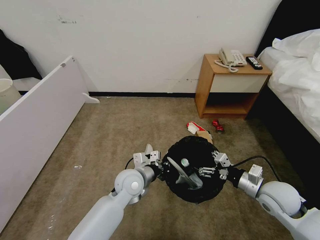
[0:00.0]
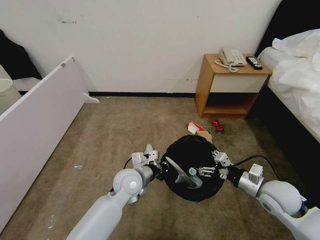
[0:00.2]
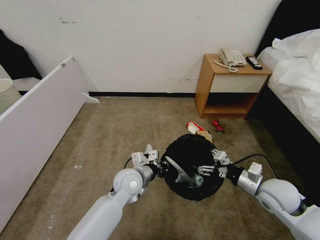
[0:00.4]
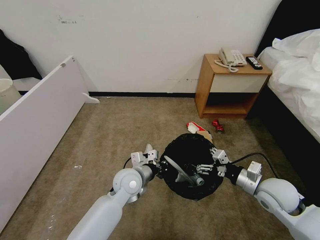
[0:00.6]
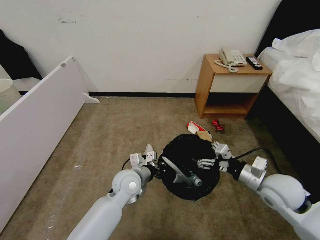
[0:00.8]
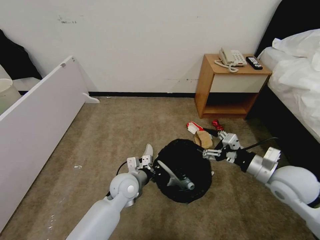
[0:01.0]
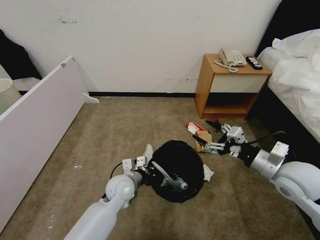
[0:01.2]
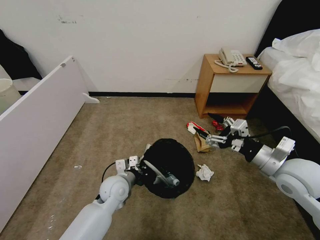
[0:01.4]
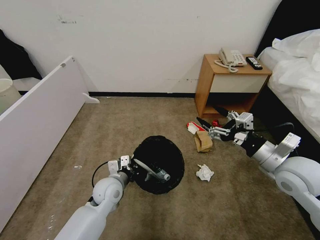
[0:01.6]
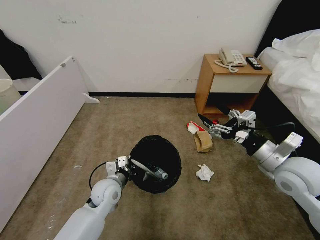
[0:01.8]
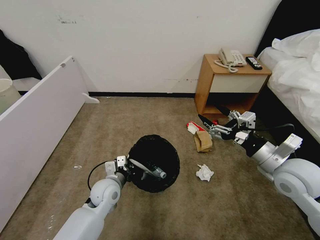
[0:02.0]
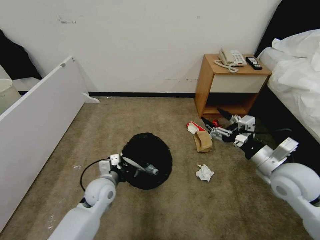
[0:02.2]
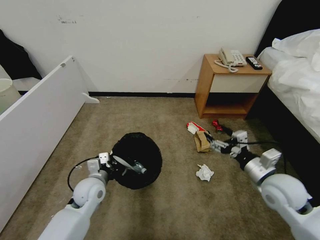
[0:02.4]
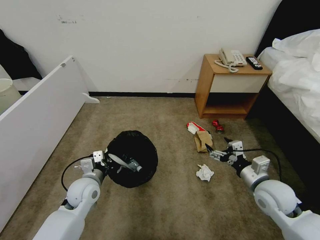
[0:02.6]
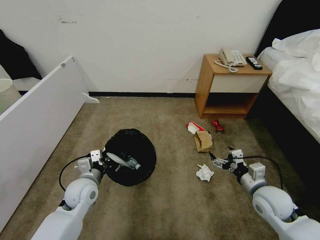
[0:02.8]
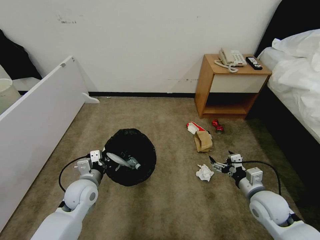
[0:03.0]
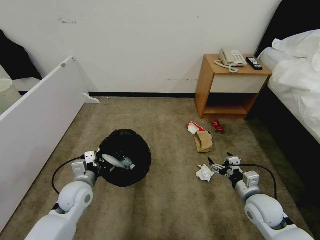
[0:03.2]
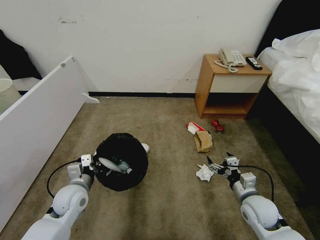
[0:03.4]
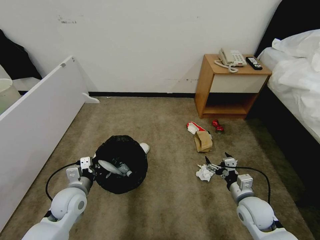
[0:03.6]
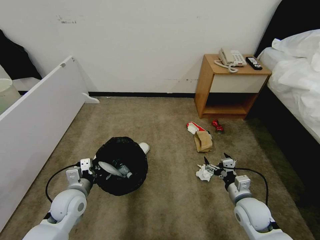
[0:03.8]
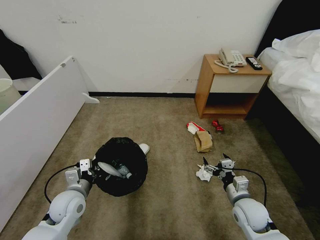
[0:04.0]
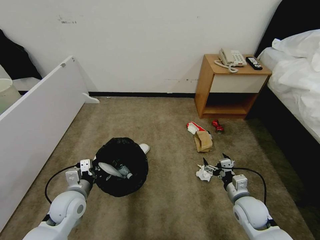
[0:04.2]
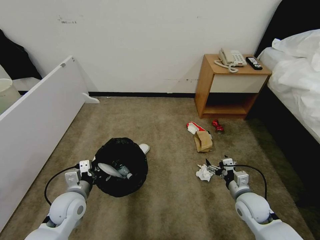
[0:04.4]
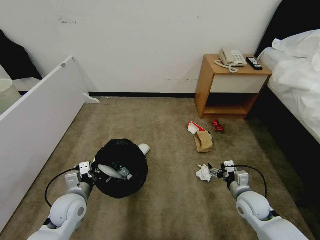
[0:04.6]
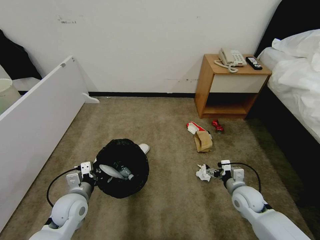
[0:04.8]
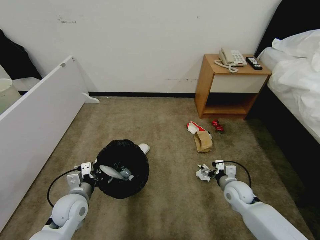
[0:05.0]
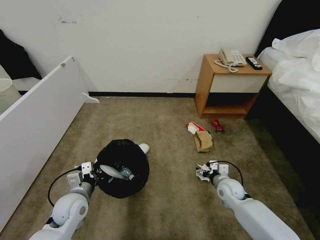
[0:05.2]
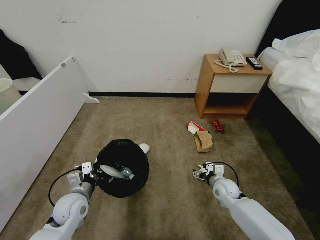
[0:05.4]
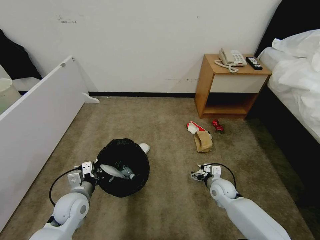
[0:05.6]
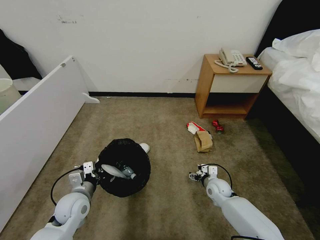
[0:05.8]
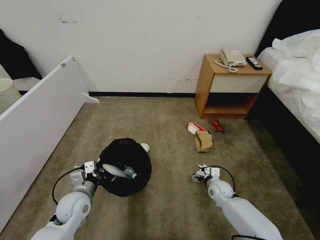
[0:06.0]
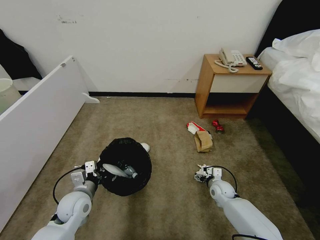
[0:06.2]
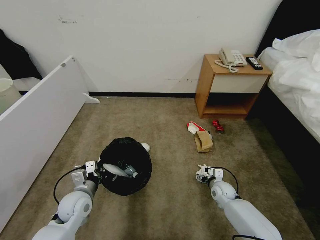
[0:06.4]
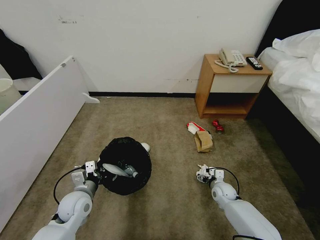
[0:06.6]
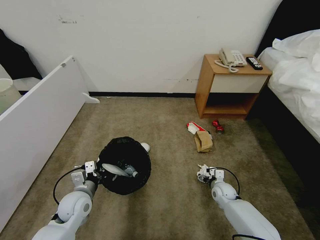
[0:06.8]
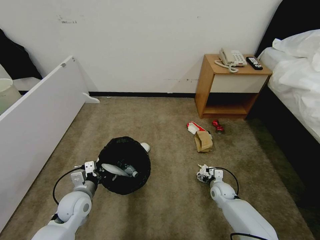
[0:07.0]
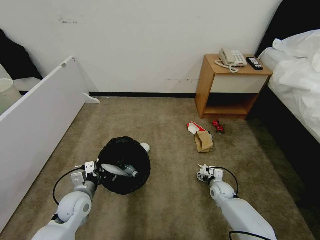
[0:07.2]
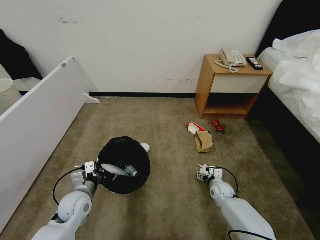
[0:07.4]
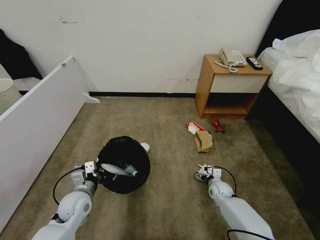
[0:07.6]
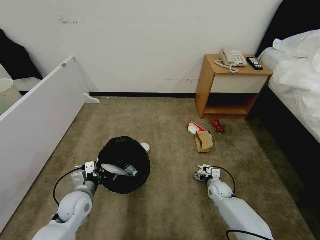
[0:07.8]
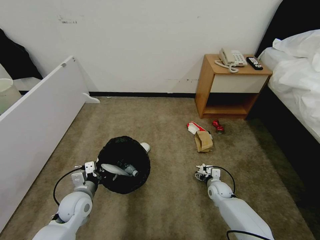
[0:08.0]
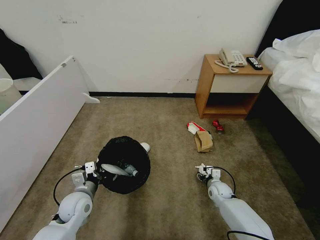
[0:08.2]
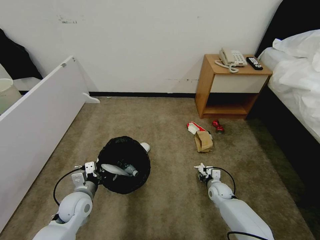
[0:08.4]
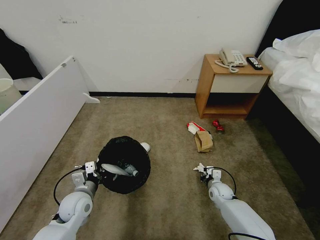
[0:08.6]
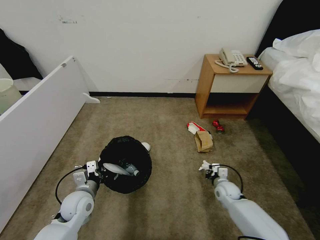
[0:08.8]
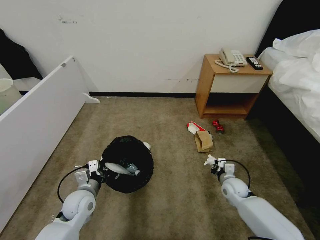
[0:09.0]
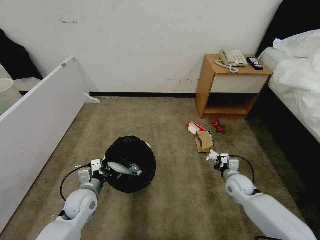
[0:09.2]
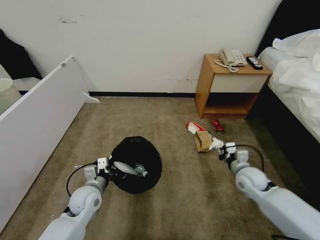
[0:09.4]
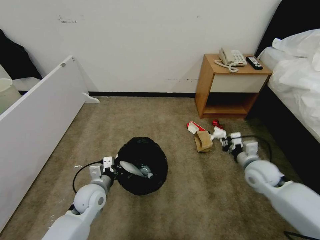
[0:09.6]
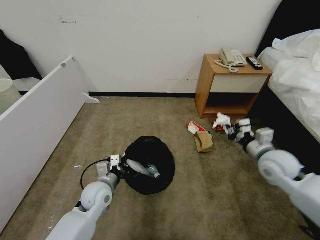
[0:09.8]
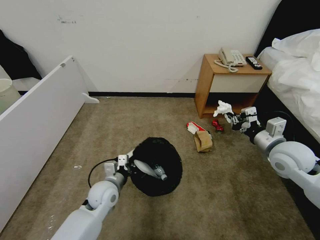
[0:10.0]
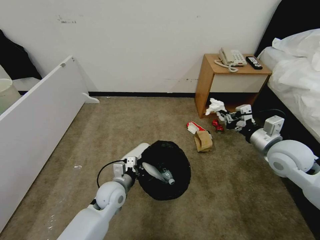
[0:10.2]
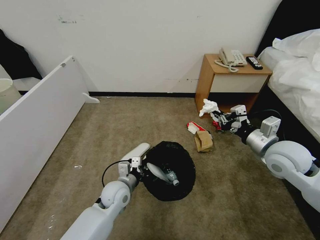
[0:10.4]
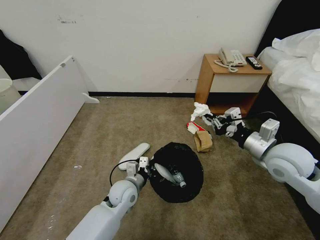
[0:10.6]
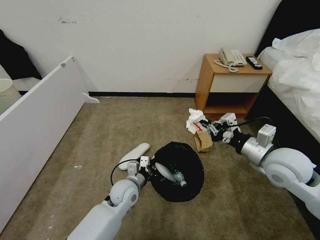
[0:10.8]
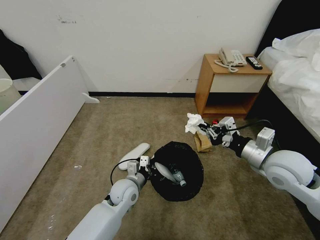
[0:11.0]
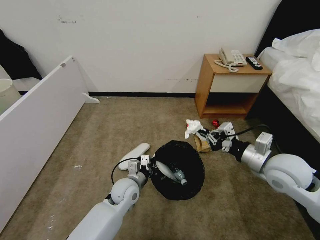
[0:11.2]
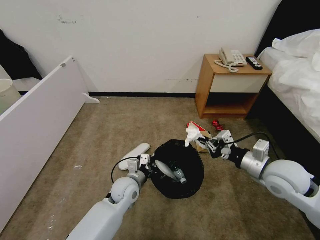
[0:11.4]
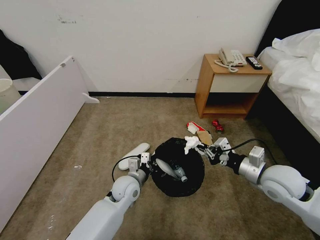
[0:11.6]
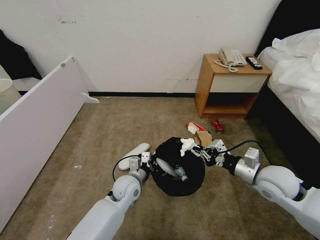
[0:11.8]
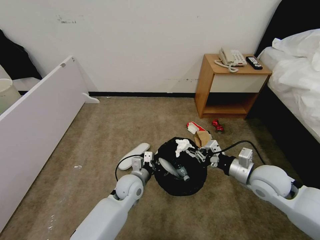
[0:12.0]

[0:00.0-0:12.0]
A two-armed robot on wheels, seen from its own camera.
Task of the whole recording: Pick up the trash bin, then pick up the garbage from the floor and place it into the trash bin.
0.0 to 1.6 s: The left gripper goes roughly 5 cm to the left. The right gripper heads upward, covering approximately 10 cm.
1.6 to 3.0 s: The right gripper moves downward, some 15 cm. Meanwhile the left gripper heads to the left, covering approximately 10 cm.
3.0 to 4.4 s: The right gripper moves downward, about 5 cm. The left gripper ends up some 5 cm from where it was.
4.4 to 6.0 s: The right gripper goes some 15 cm downward and forward.
6.0 to 7.6 s: The grippers stay close to where they were, moving slightly.
7.6 to 9.0 s: The right gripper shifts some 5 cm upward, and closes its fingers.
9.0 to 10.4 s: The right gripper moves upward, roughly 30 cm, while the left gripper goes approximately 10 cm to the right.
10.4 to 12.0 s: The left gripper moves approximately 5 cm. Meanwhile the right gripper travels downward by approximately 5 cm.

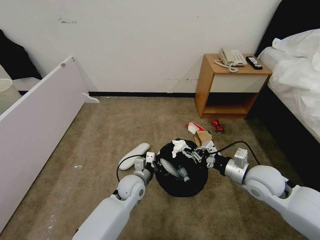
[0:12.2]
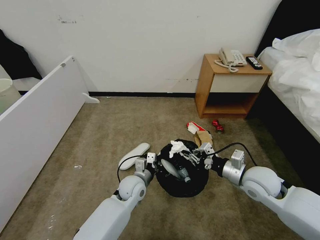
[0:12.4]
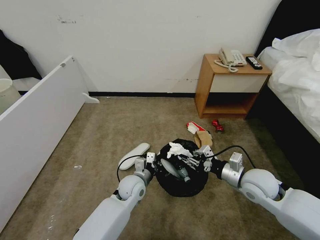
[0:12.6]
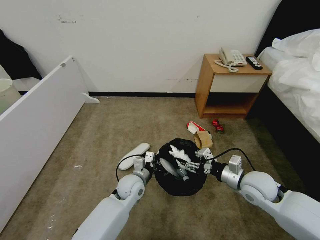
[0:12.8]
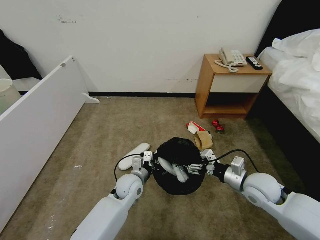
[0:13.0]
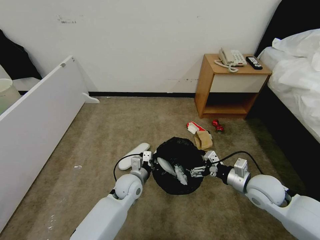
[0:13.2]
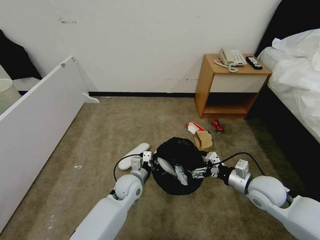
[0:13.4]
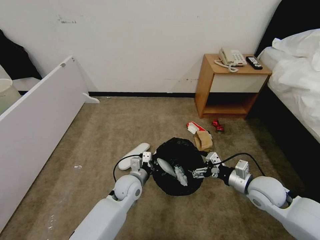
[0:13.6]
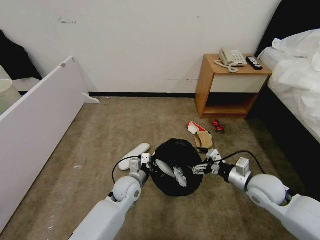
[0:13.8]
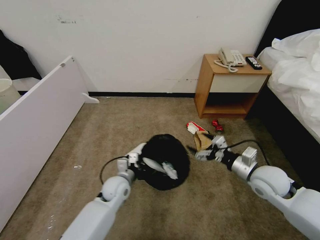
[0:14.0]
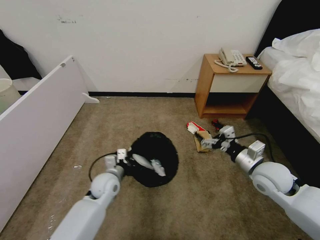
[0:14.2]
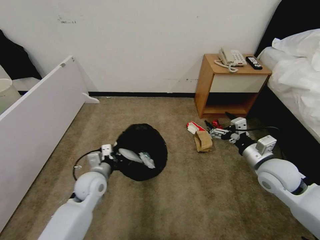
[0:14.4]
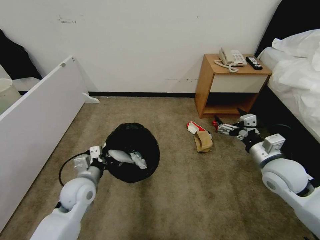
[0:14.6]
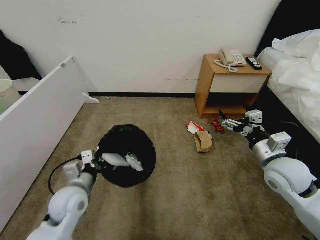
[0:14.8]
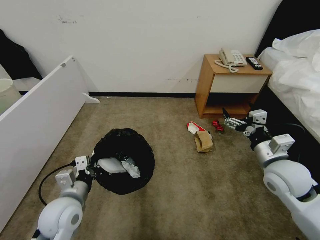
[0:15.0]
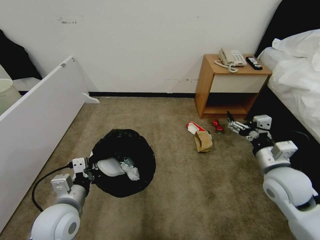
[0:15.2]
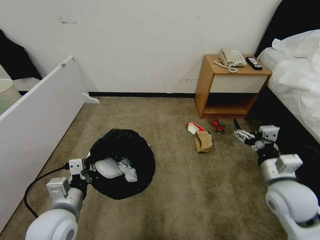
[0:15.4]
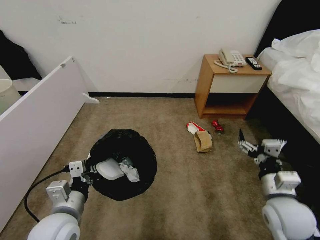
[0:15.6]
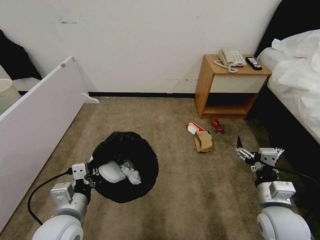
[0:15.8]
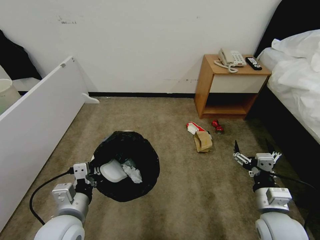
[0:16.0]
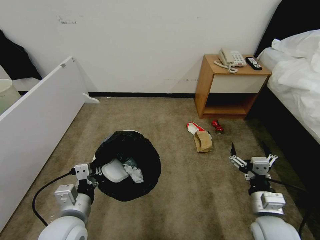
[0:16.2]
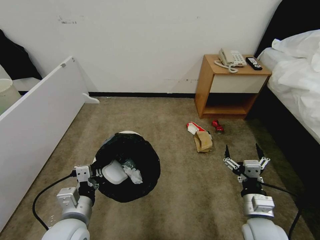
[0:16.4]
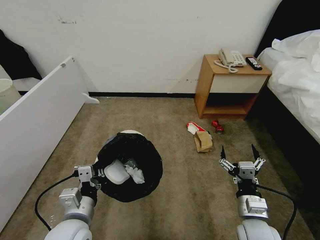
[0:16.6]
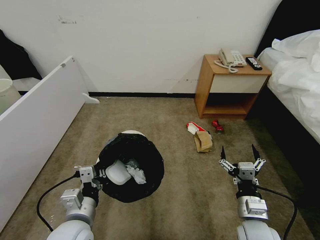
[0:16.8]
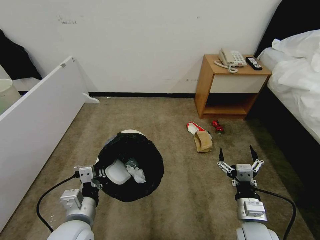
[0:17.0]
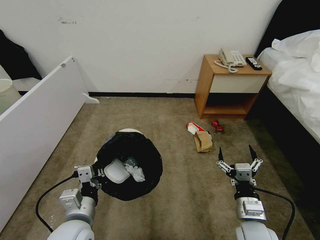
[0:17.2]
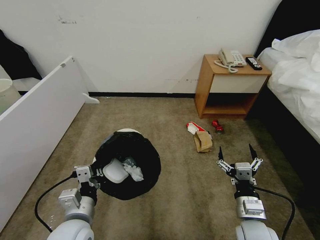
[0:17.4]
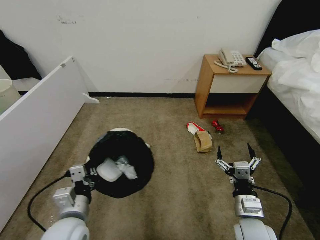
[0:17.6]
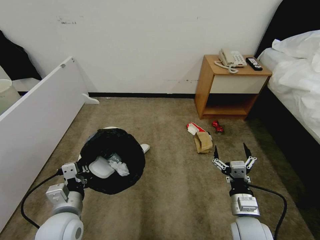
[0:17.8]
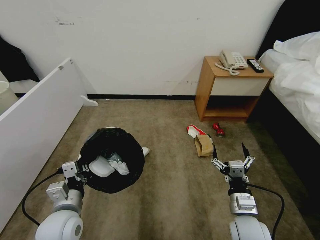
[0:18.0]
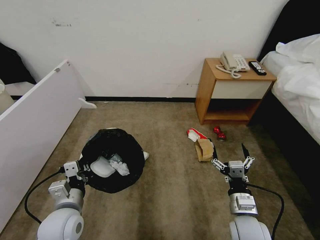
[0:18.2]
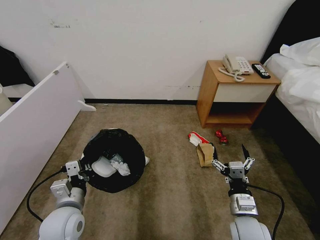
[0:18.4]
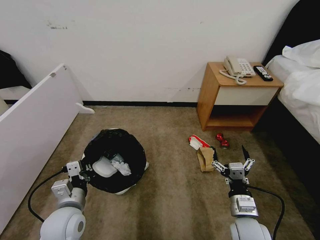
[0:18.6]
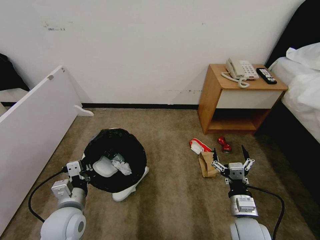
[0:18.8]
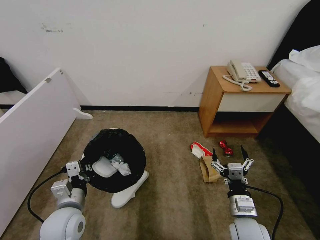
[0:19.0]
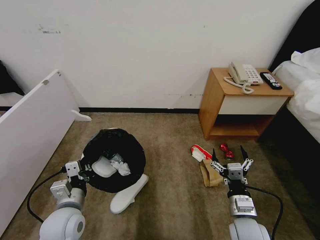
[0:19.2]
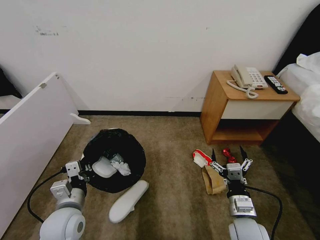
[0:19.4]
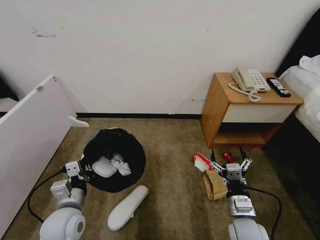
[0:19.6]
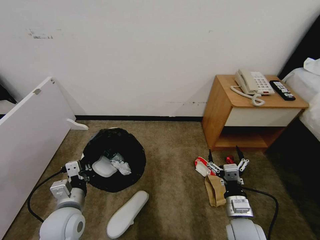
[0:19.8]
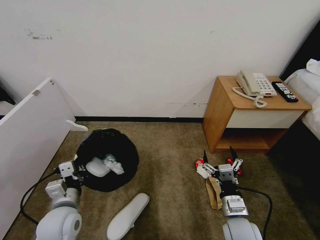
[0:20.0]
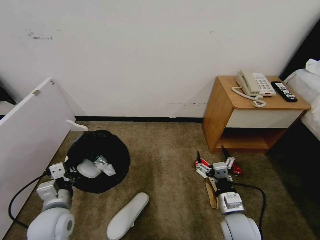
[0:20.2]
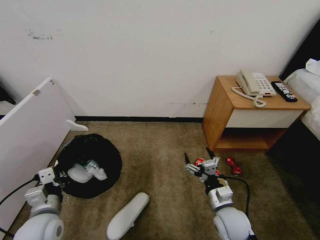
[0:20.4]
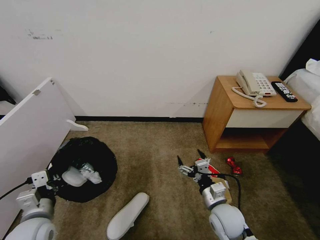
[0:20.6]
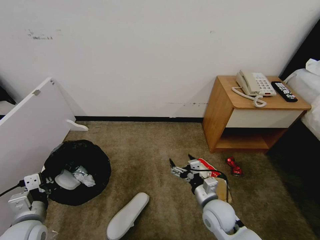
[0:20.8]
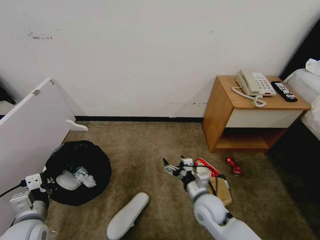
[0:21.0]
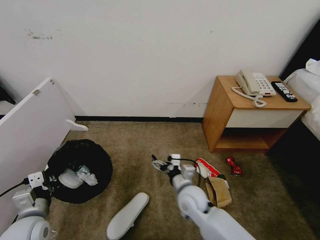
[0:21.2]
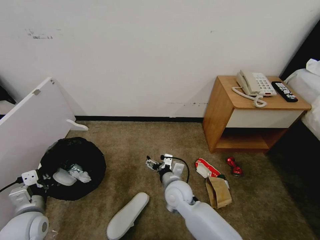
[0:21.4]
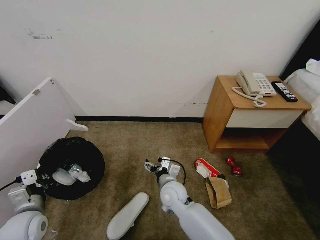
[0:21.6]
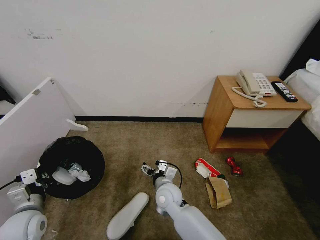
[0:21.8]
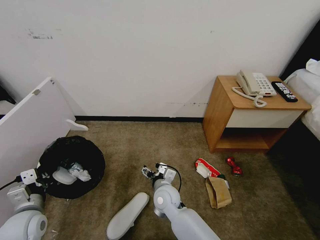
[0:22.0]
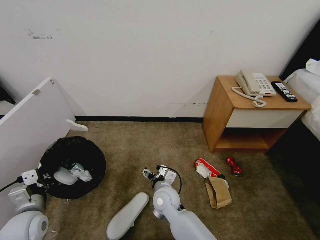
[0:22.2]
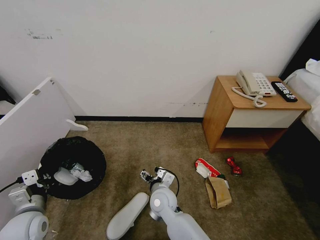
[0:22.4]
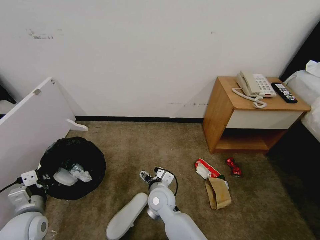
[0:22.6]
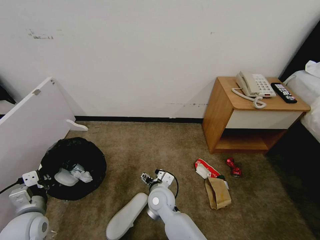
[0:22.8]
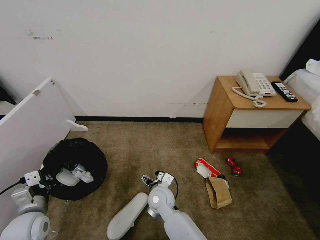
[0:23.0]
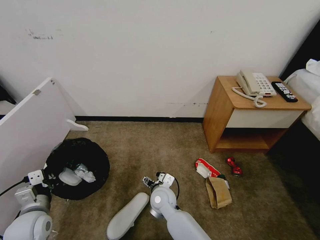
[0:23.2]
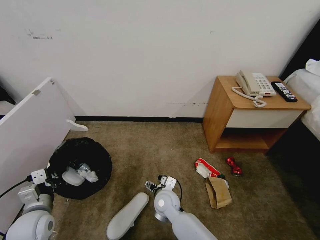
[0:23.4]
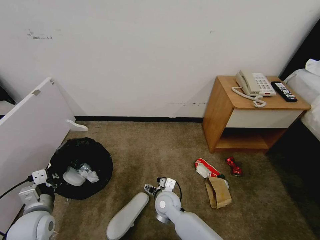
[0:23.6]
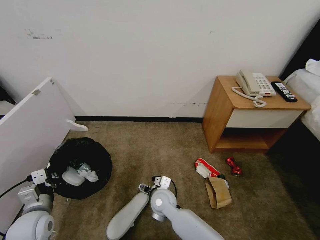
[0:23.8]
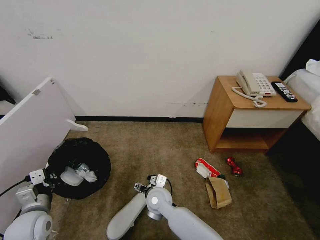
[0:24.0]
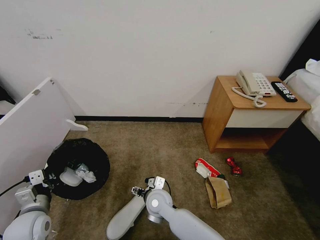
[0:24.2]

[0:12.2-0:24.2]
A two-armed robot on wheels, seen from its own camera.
Task of the whole recording: Pick up the trash bin, then pick up the garbage from the floor and place it into the trash bin.
12.2 to 13.8 s: The right gripper ends up approximately 5 cm from where it was, and opens.
13.8 to 15.2 s: The right gripper travels upward by approximately 10 cm. Meanwhile the left gripper heads to the left, backward and upward, covering about 25 cm.
15.2 to 16.6 s: The right gripper travels downward, backward and to the left by some 15 cm; the left gripper shifts by approximately 5 cm.
16.6 to 18.2 s: The left gripper changes place by roughly 5 cm.
19.8 to 21.2 s: The left gripper travels to the left by some 10 cm. Meanwhile the right gripper shifts roughly 15 cm to the left and forward.
21.2 to 22.6 s: The right gripper travels to the left by some 10 cm.
22.6 to 24.2 s: There are only small adjustments of the grippers.
